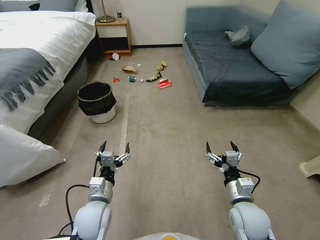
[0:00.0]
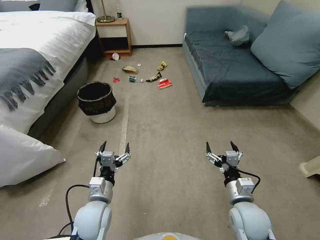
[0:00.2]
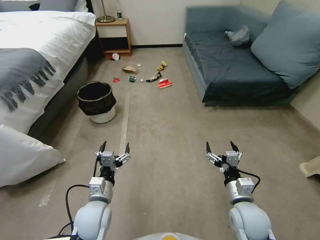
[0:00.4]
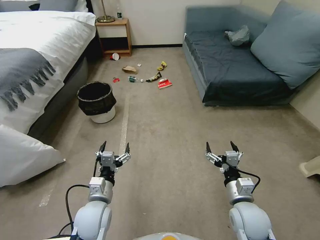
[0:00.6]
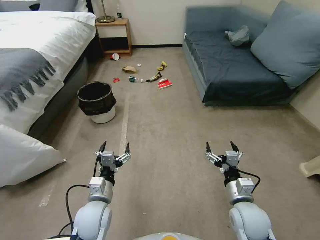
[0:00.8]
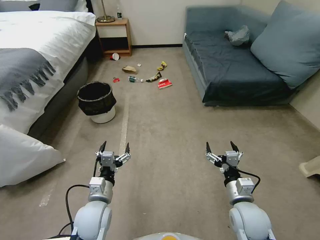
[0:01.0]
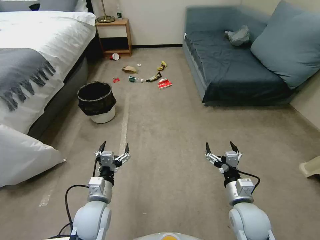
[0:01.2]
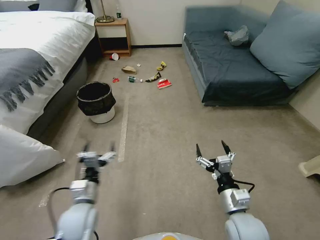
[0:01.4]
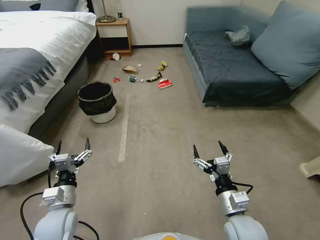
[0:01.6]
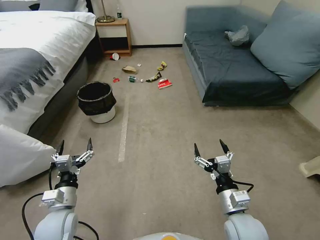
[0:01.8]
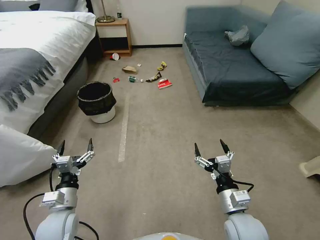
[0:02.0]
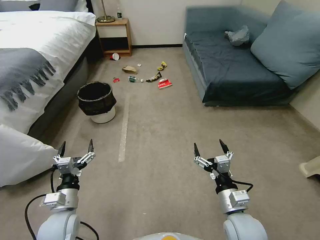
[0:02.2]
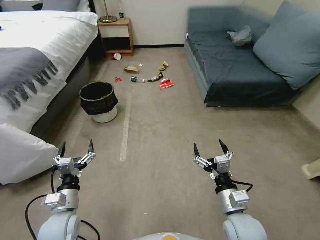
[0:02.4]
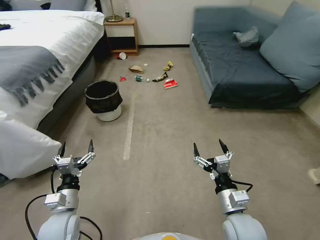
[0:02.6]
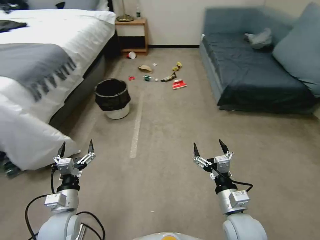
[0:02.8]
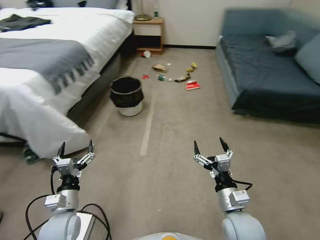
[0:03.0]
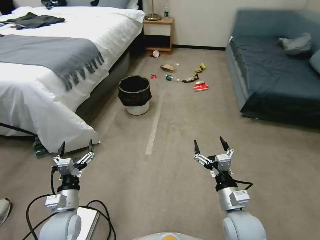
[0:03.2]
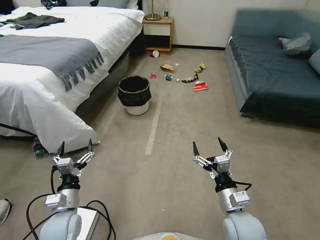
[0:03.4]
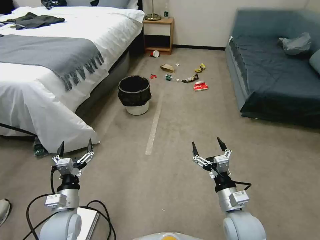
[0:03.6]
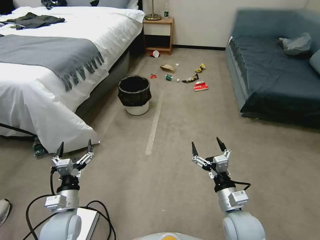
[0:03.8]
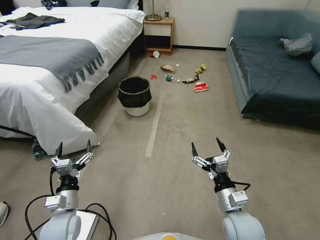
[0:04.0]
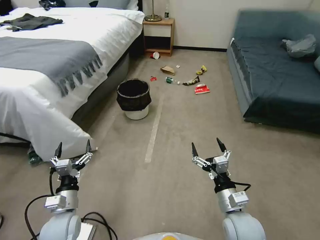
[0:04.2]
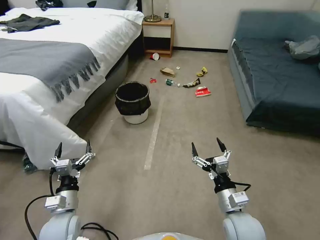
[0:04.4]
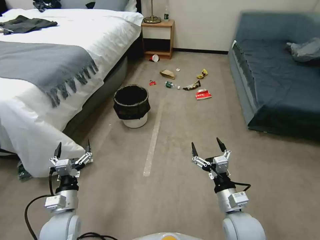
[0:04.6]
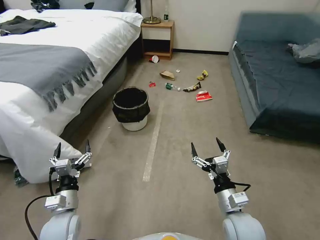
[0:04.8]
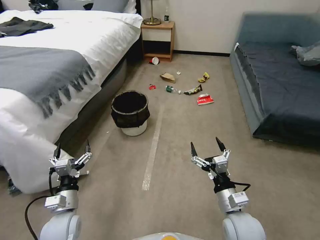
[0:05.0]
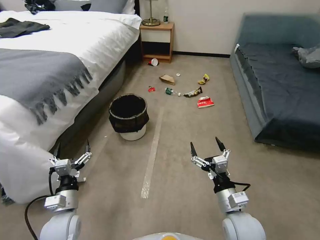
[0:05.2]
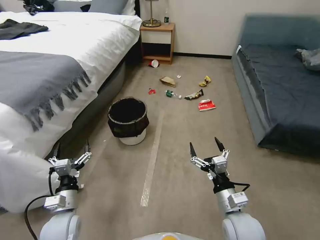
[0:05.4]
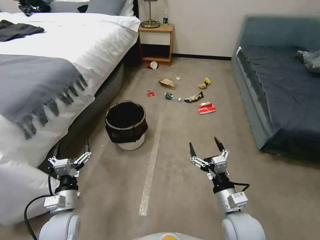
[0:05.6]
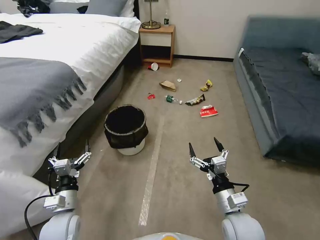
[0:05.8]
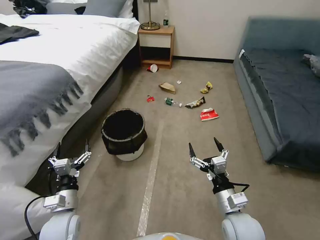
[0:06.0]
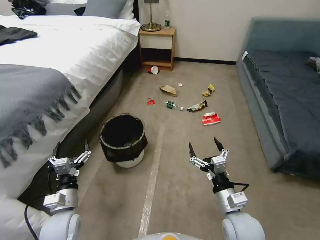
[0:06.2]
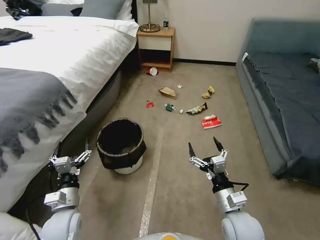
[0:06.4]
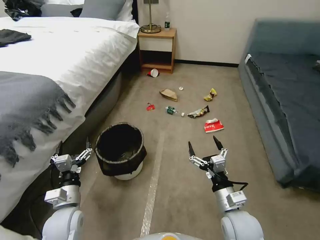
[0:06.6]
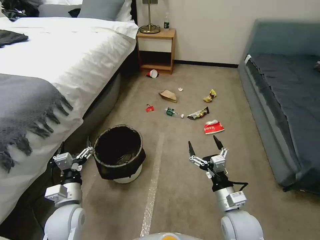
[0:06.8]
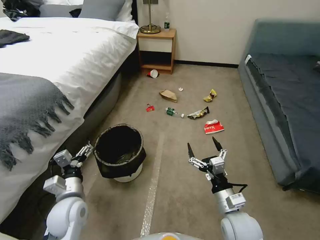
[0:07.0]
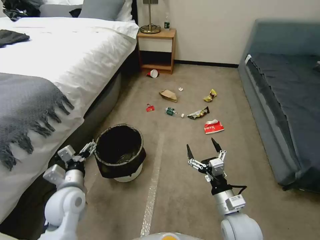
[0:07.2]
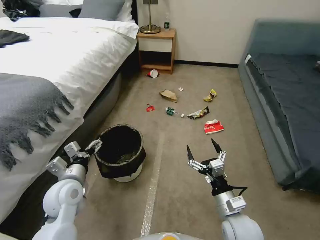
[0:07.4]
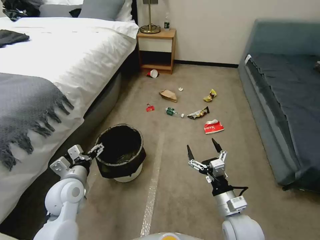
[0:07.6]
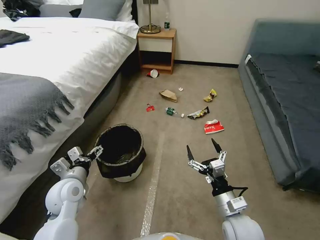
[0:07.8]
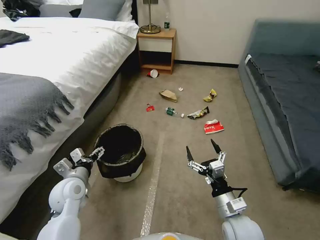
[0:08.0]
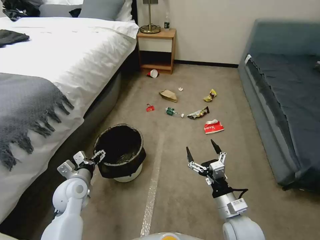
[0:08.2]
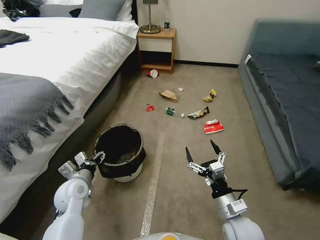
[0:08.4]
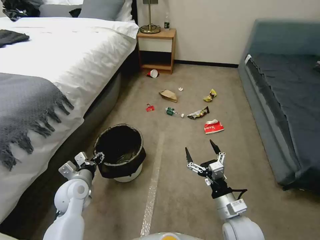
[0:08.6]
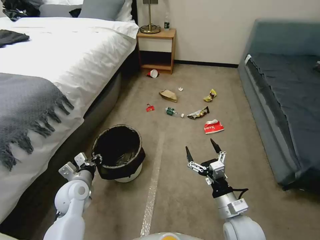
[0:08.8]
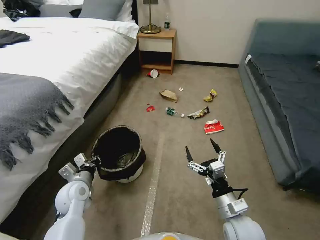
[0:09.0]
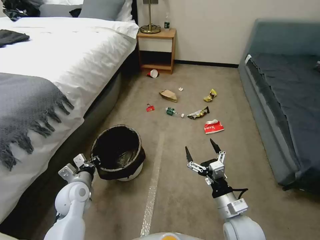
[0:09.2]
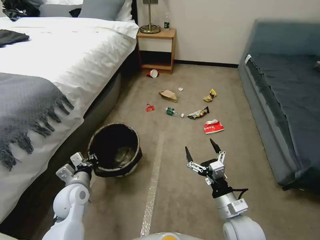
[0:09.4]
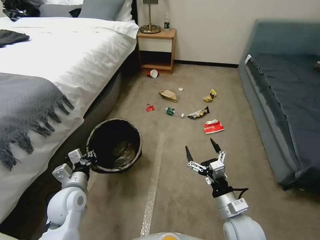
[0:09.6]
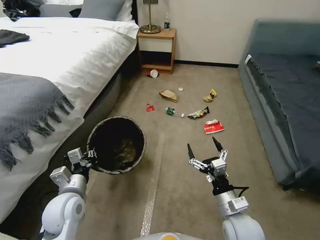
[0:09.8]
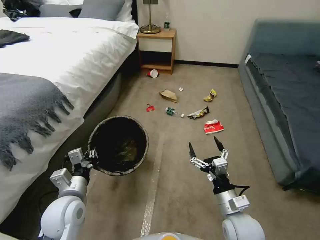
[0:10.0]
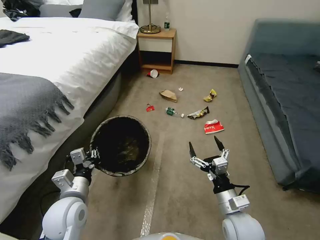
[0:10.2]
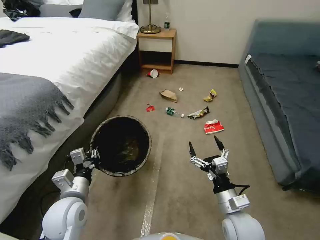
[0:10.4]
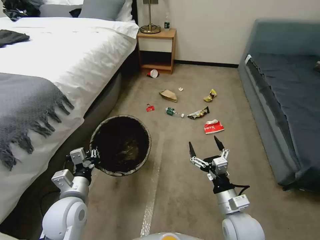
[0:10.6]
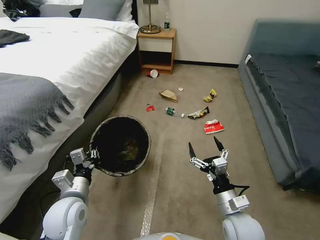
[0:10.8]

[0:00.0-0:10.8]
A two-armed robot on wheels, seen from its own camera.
Task of the whole recording: Pick up the trash can from the floor.
0:06.2 to 0:07.8: The left gripper goes approximately 10 cm forward and upward.
0:07.8 to 0:09.2: The left gripper moves downward, roughly 5 cm, and closes up.
0:09.2 to 0:10.8: The left gripper travels backward and upward by approximately 10 cm.

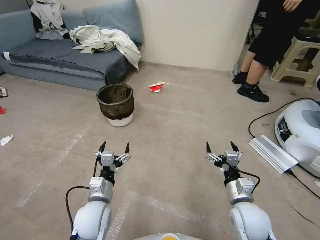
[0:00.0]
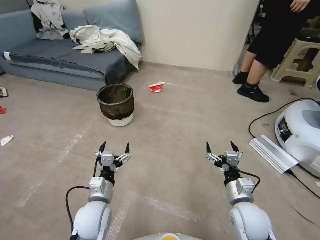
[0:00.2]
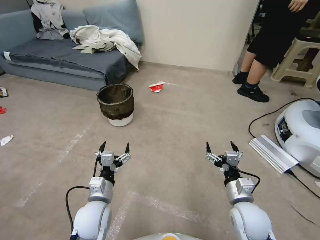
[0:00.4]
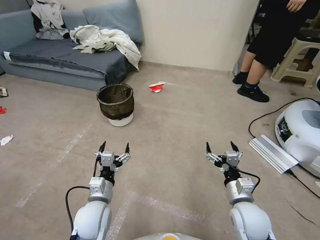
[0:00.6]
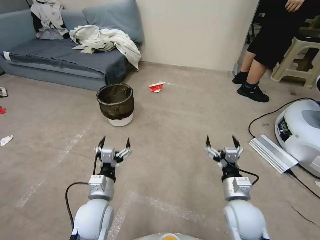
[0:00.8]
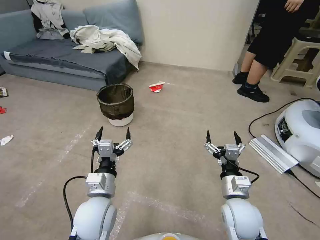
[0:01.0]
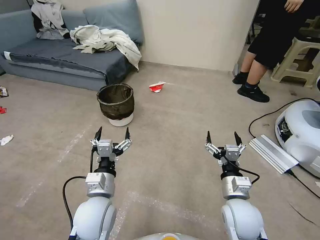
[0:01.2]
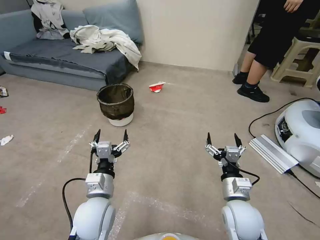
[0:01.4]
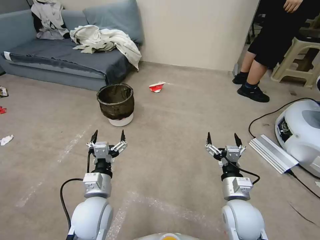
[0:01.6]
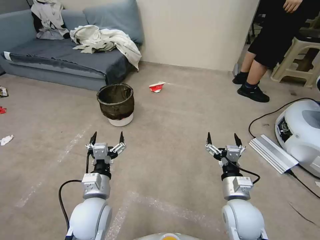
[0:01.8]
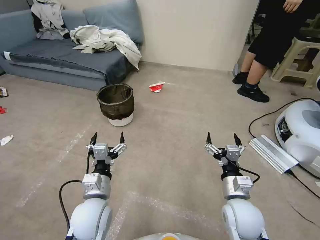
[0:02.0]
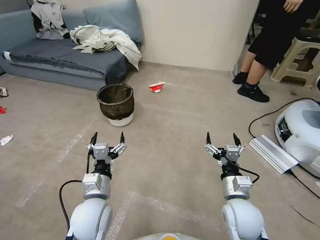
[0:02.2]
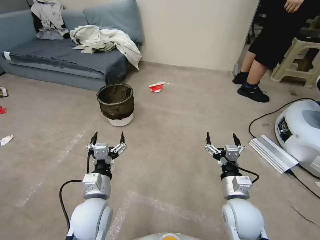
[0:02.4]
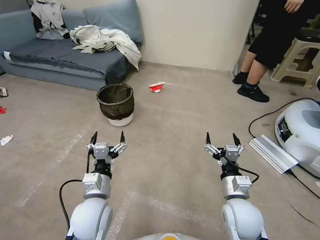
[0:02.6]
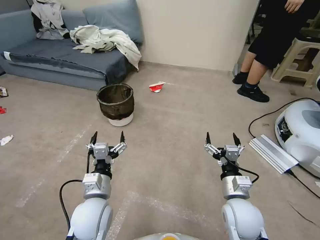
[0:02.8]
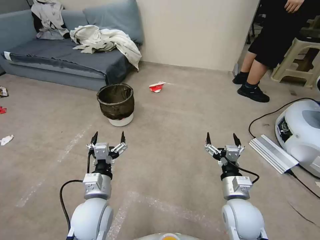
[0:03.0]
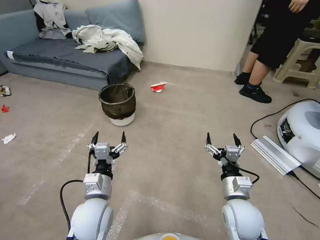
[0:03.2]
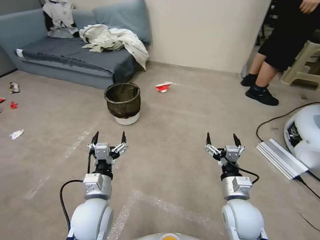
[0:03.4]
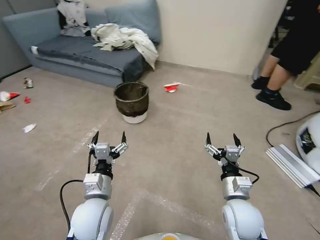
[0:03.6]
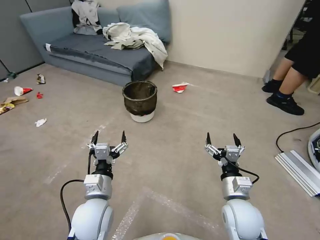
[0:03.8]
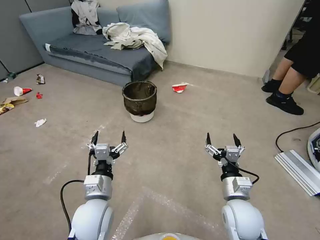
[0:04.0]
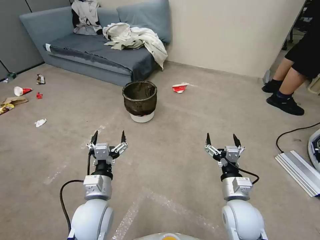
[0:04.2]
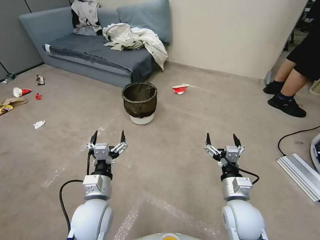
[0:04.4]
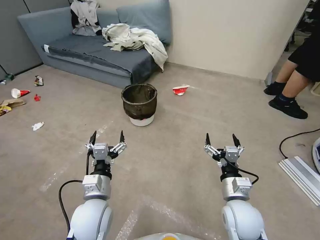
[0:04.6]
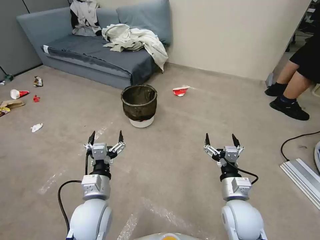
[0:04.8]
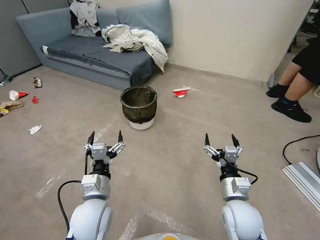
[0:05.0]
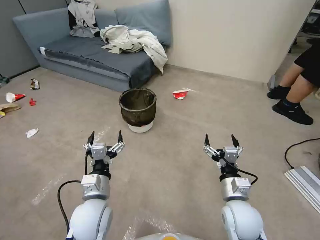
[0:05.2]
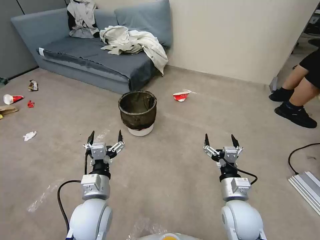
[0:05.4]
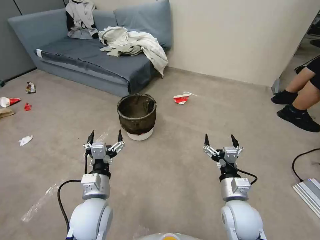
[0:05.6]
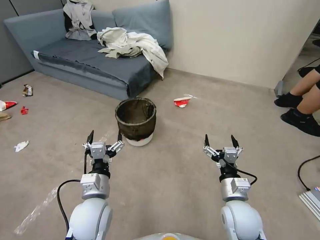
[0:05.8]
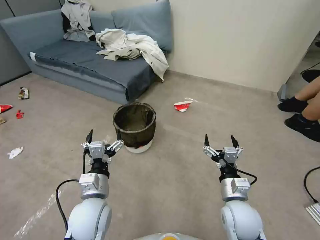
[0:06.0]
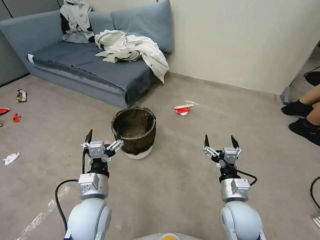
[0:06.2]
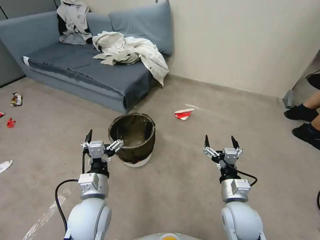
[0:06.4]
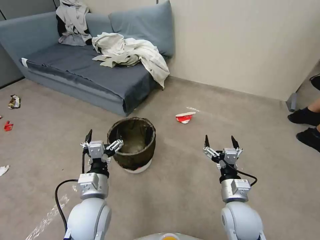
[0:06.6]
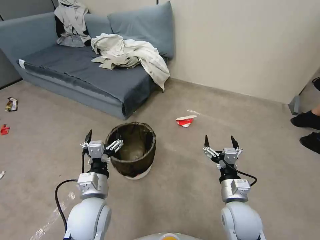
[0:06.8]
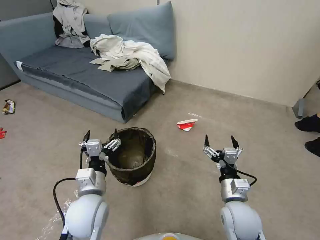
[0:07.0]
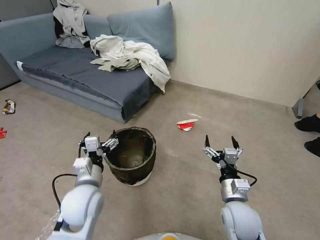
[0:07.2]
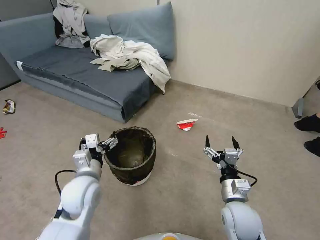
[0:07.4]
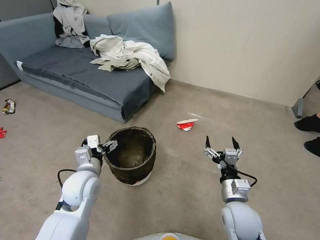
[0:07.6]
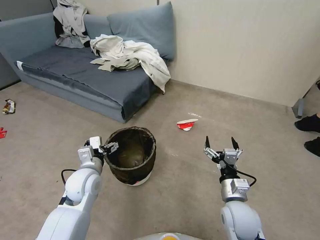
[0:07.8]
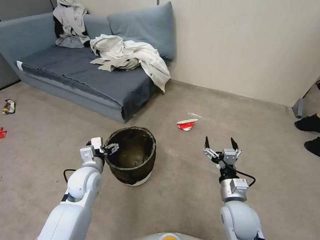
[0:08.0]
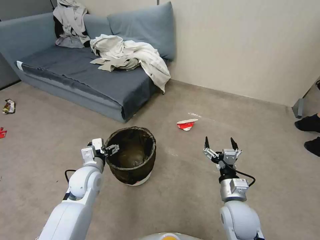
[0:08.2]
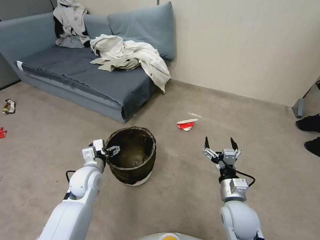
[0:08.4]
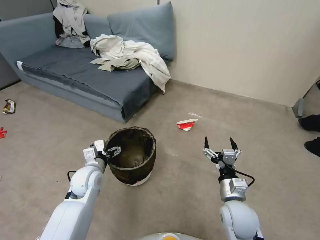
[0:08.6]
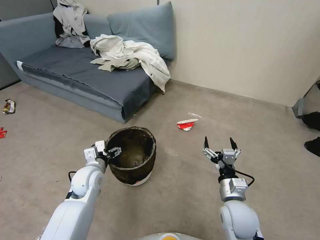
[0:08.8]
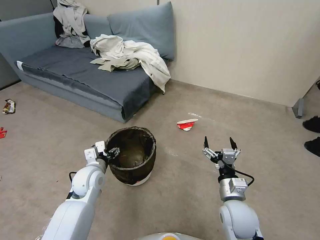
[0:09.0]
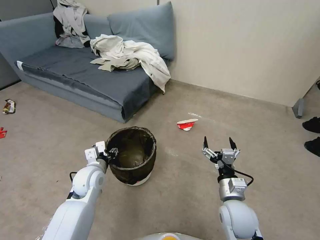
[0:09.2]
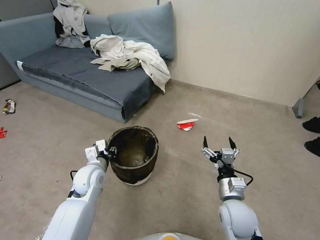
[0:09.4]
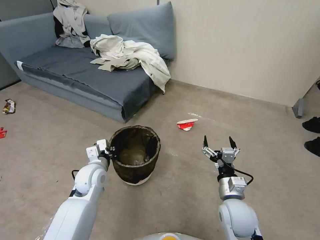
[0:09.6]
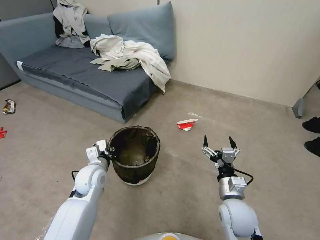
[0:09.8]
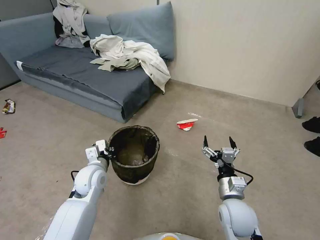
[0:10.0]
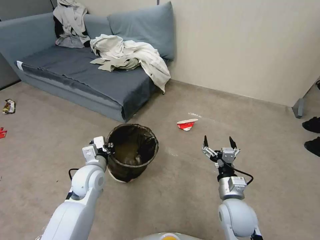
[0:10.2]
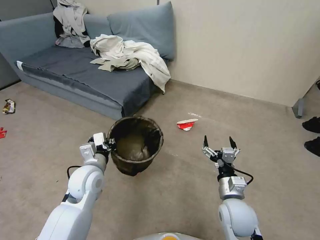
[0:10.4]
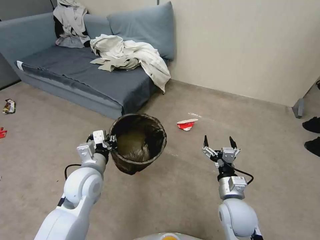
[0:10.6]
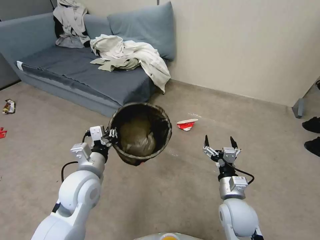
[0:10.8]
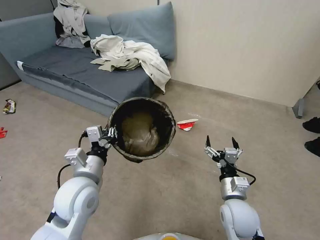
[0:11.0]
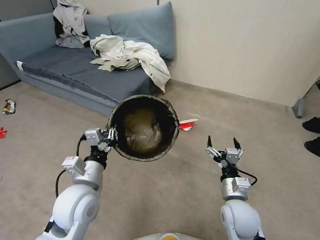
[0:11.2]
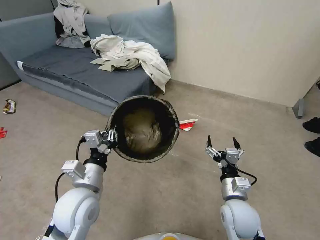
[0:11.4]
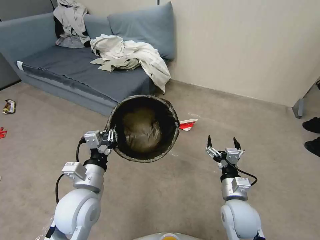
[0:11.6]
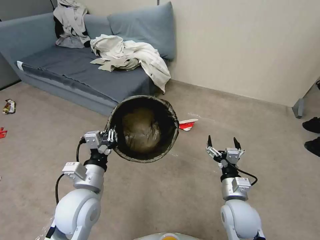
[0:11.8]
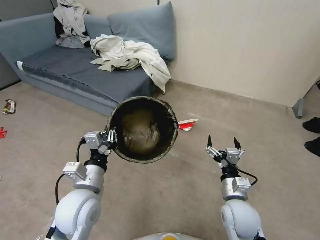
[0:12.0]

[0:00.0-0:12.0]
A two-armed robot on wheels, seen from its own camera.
Task of the whole recording: Pick up the trash can from the floor.
0:01.6 to 0:03.0: The two grippers keep their place.
0:06.0 to 0:07.6: The left gripper is displaced forward by some 5 cm.
0:07.6 to 0:09.0: The left gripper moves downward, approximately 5 cm.
0:09.0 to 0:10.4: The left gripper moves upward, some 5 cm, and closes up.
0:10.4 to 0:12.0: The left gripper shifts some 10 cm backward.
